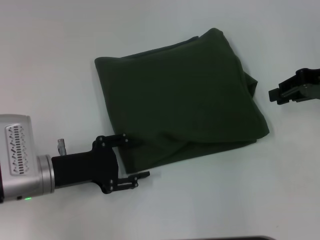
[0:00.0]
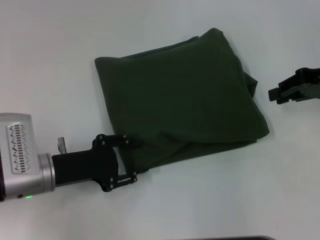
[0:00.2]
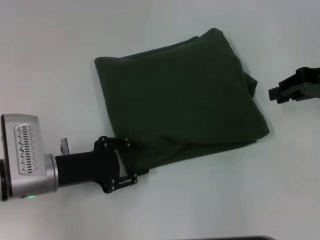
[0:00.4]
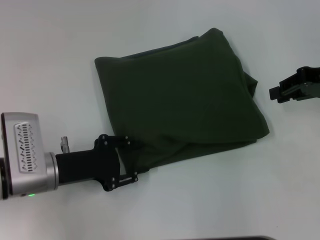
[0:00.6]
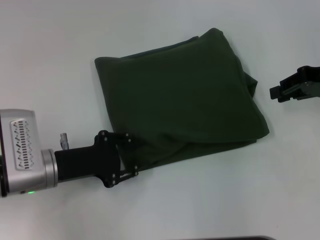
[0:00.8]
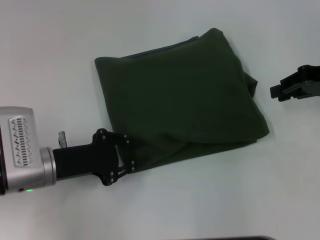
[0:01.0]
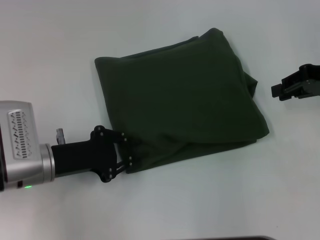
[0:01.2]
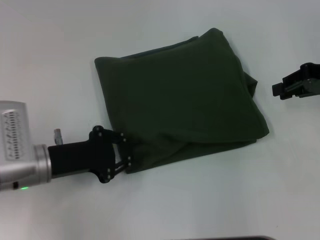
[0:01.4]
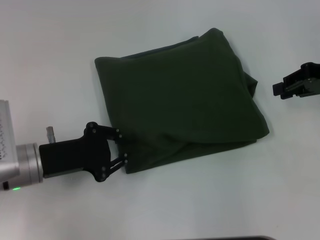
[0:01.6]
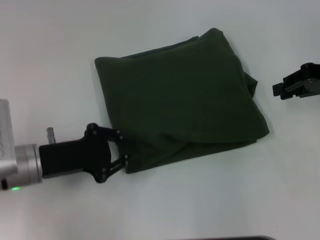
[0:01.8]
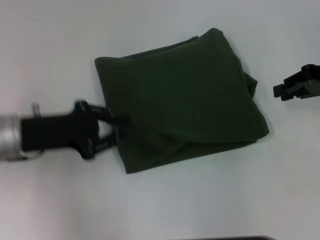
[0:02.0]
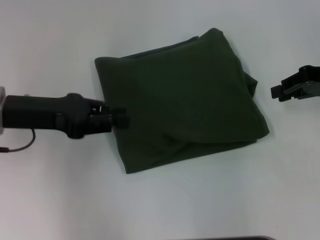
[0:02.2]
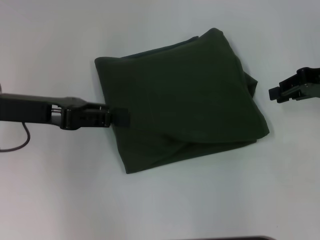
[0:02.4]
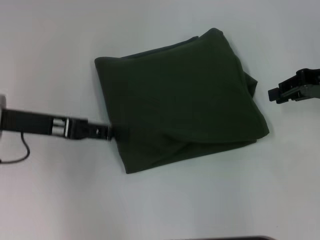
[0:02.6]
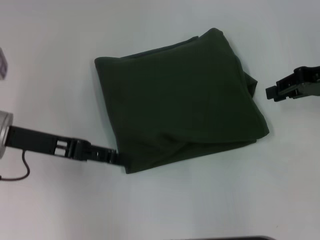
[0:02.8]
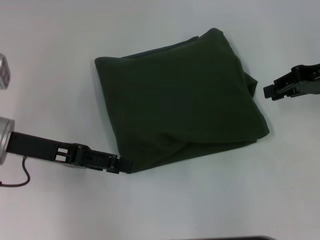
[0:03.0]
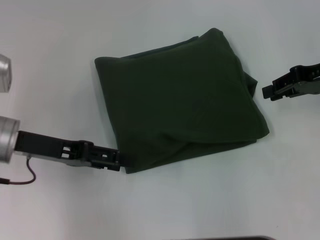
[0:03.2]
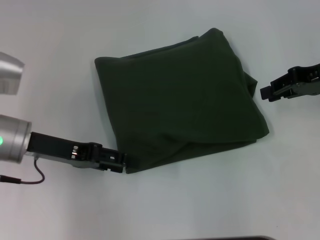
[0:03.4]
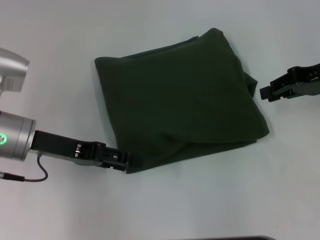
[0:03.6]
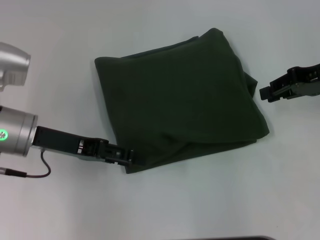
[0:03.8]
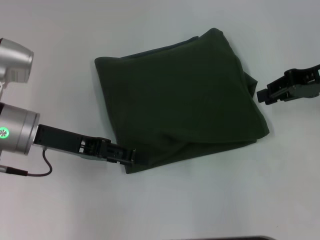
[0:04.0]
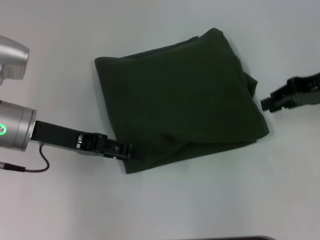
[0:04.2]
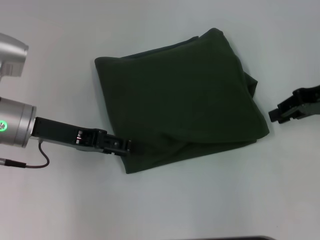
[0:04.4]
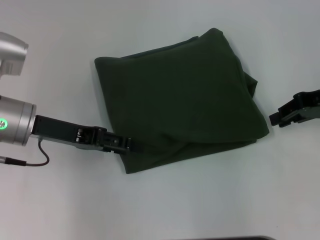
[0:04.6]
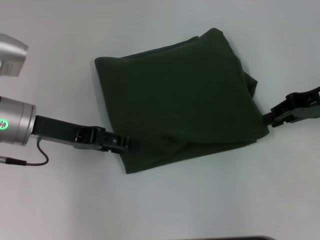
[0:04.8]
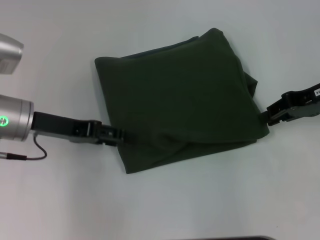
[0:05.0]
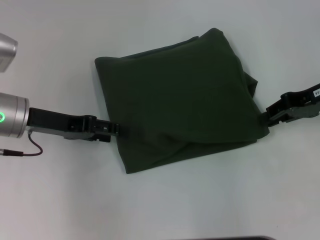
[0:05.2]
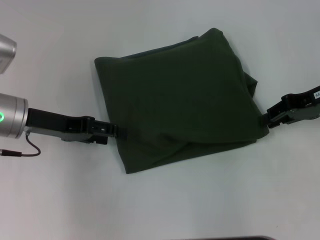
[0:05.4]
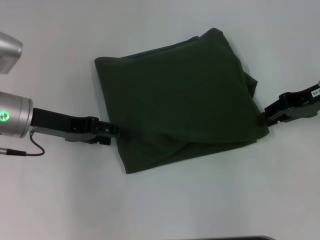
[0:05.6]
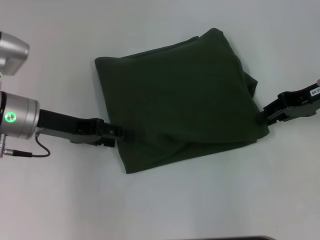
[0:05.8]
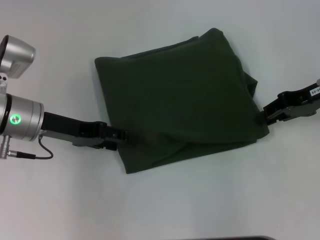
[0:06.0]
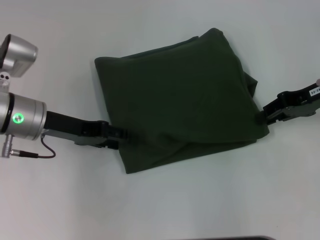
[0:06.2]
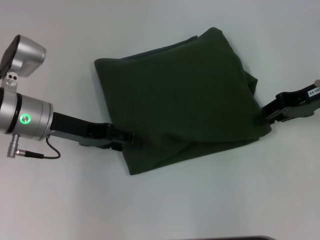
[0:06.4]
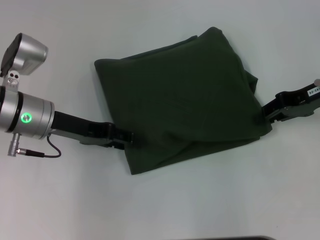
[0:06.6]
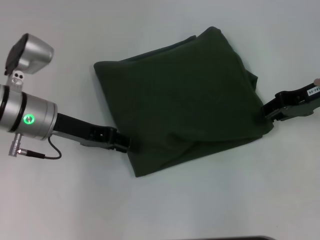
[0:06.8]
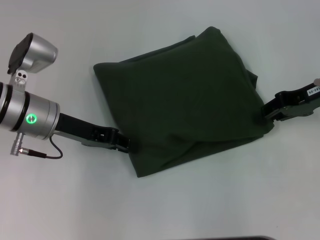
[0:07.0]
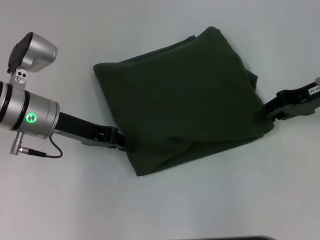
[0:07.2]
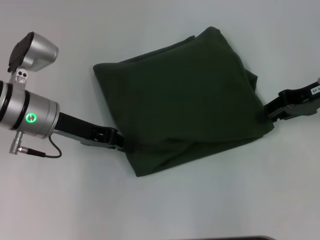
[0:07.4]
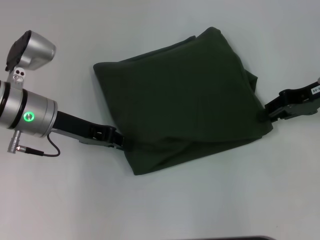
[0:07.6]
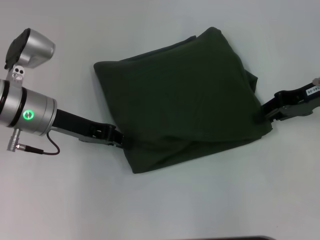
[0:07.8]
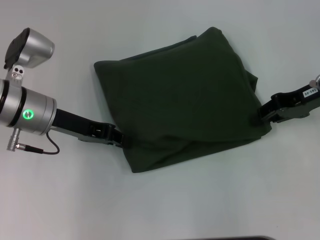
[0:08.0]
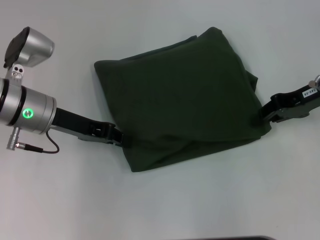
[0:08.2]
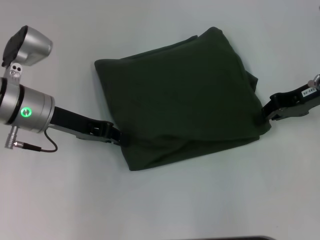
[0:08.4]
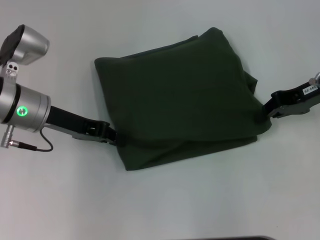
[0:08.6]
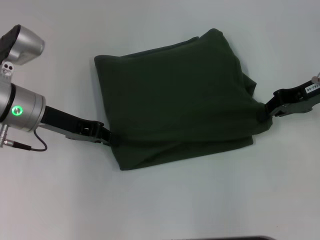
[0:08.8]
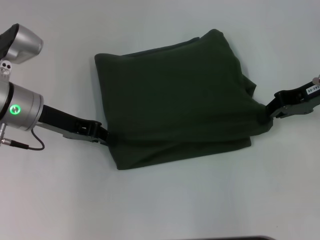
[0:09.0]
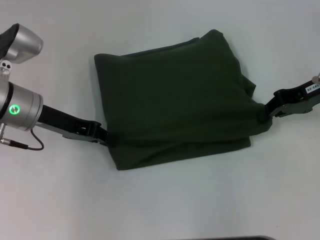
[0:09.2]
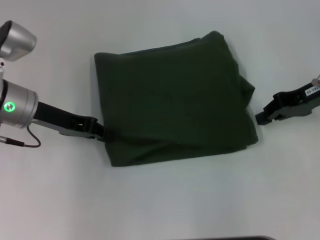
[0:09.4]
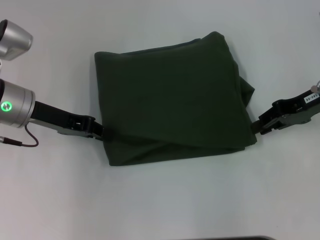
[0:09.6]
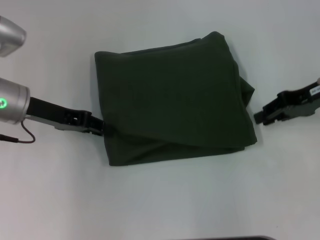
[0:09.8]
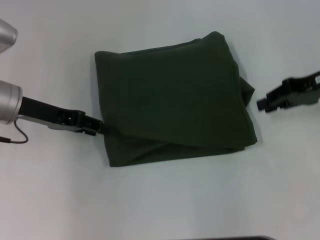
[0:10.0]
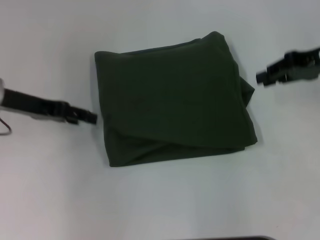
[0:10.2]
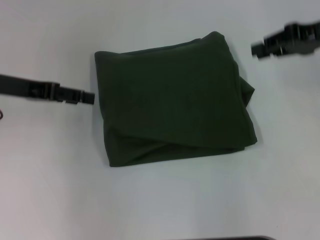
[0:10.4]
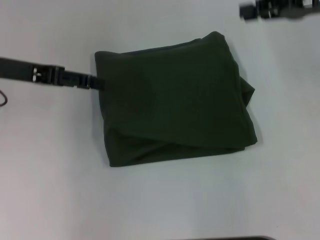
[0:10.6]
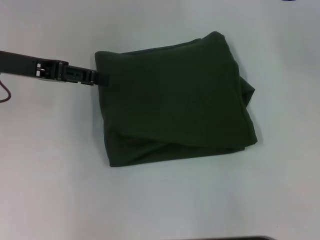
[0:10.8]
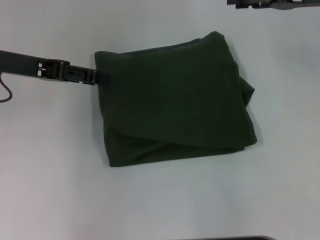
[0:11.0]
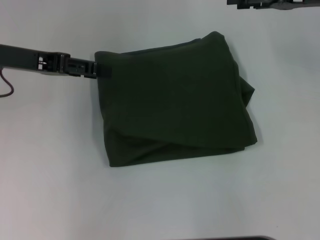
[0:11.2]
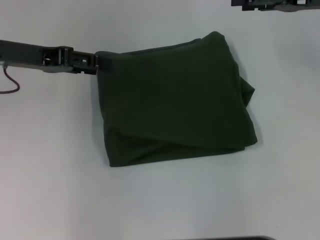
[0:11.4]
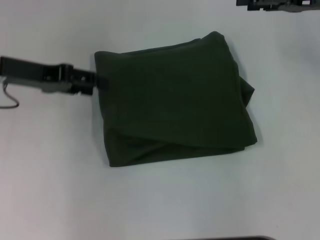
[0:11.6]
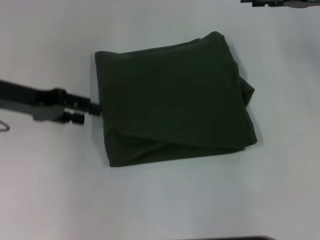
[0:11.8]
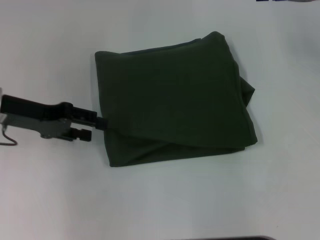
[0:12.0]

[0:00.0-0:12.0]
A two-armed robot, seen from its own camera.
0:00.0 to 0:01.6: The left gripper closes.
0:01.6 to 0:03.0: The left gripper goes roughly 5 cm upward, and opens.
0:03.0 to 0:06.0: The grippers stay close to where they were, moving slightly.
0:06.0 to 0:07.6: The left gripper closes.
0:07.6 to 0:09.0: There are only small adjustments of the grippers.
0:09.0 to 0:10.4: The left gripper is displaced to the left and upward by some 10 cm, and opens its fingers; the right gripper is displaced upward by approximately 5 cm.
0:10.4 to 0:12.0: The right gripper opens up.

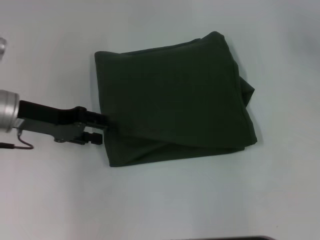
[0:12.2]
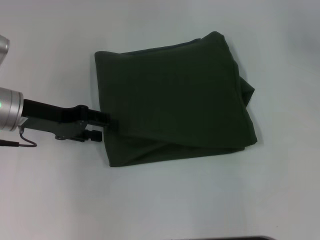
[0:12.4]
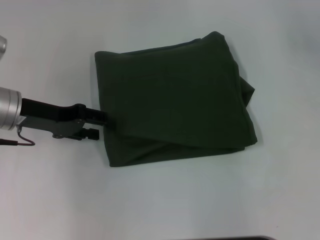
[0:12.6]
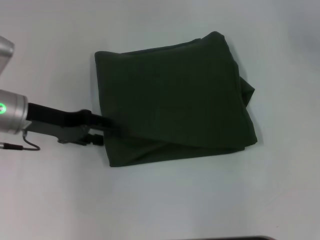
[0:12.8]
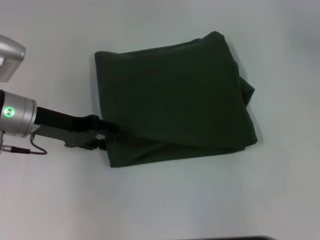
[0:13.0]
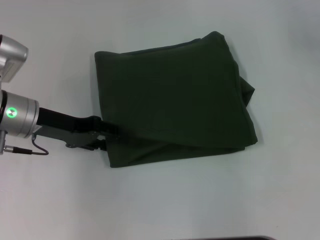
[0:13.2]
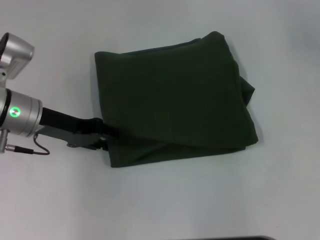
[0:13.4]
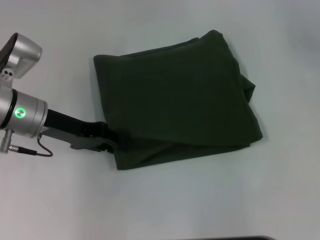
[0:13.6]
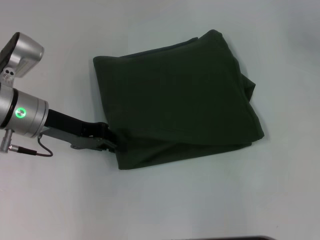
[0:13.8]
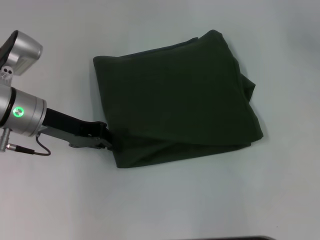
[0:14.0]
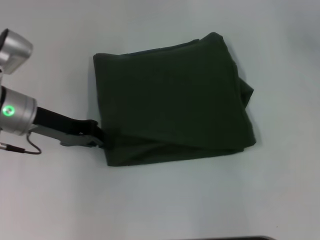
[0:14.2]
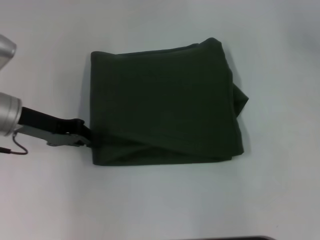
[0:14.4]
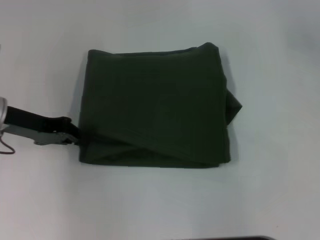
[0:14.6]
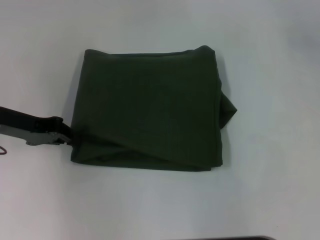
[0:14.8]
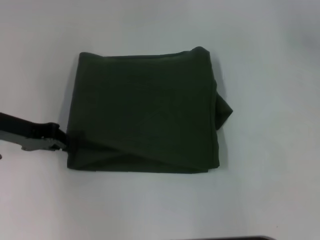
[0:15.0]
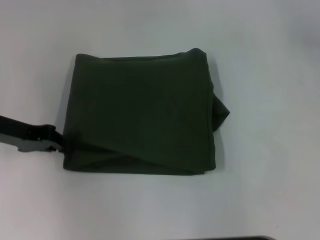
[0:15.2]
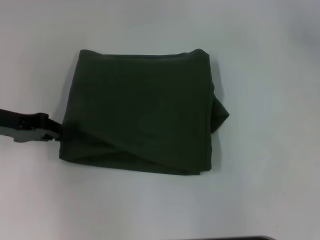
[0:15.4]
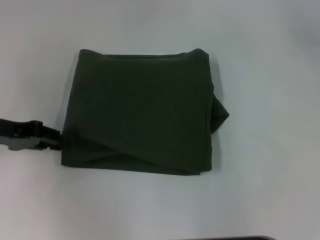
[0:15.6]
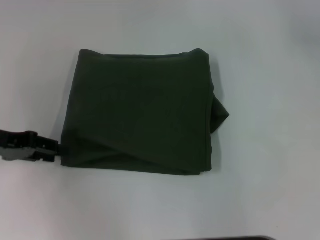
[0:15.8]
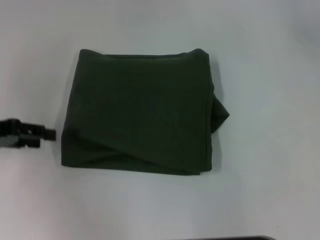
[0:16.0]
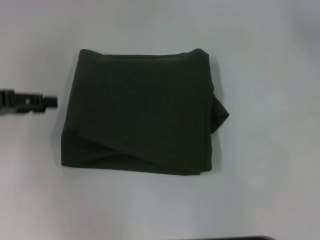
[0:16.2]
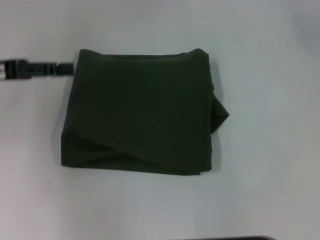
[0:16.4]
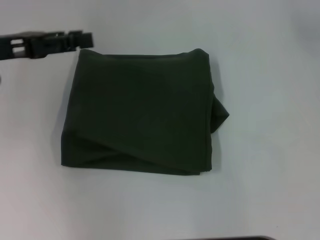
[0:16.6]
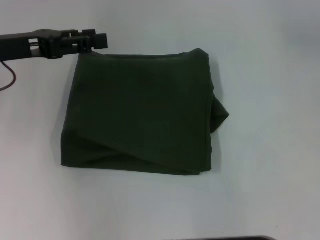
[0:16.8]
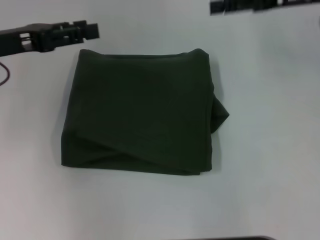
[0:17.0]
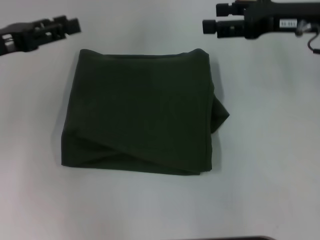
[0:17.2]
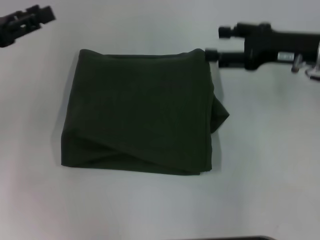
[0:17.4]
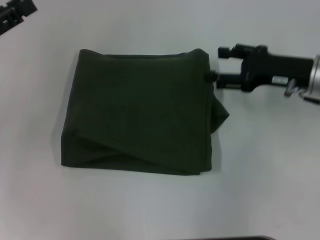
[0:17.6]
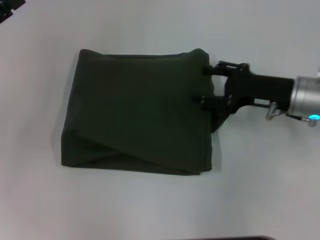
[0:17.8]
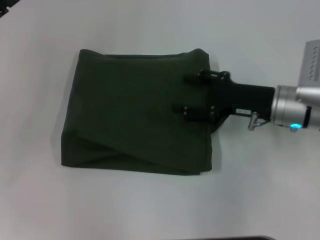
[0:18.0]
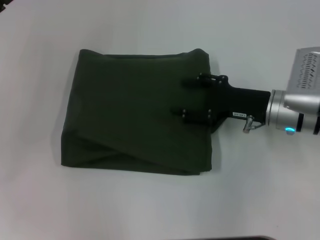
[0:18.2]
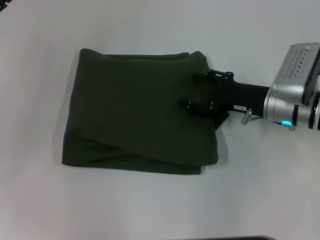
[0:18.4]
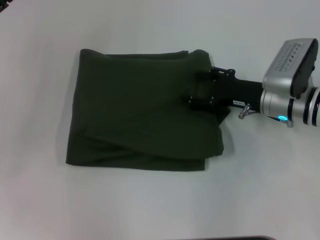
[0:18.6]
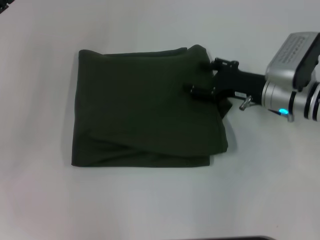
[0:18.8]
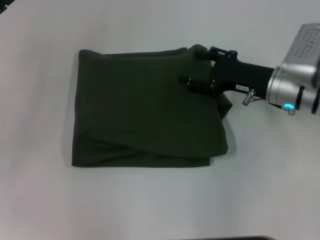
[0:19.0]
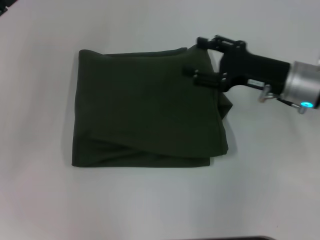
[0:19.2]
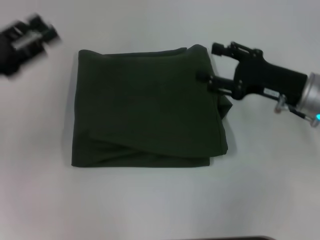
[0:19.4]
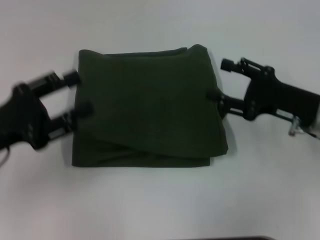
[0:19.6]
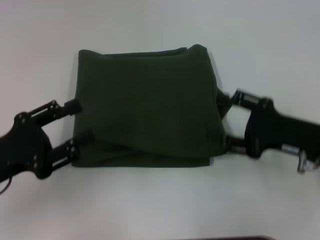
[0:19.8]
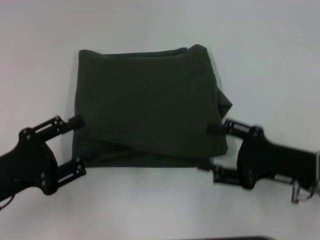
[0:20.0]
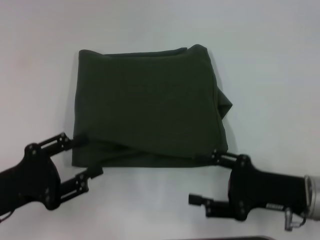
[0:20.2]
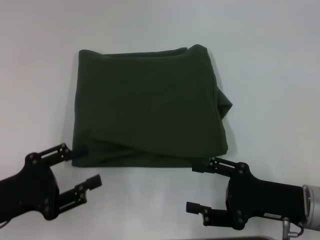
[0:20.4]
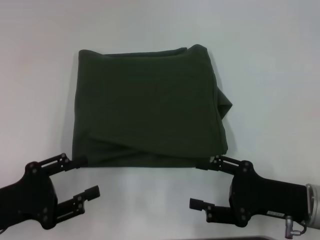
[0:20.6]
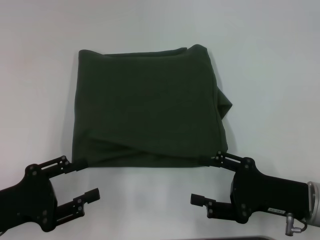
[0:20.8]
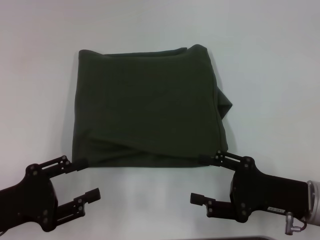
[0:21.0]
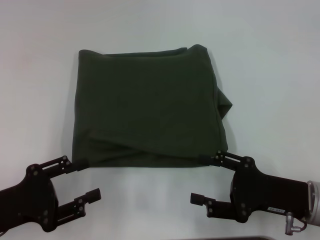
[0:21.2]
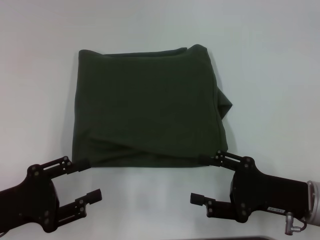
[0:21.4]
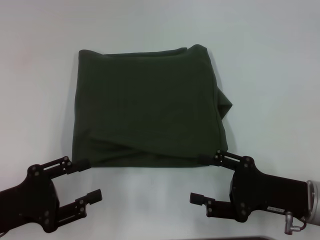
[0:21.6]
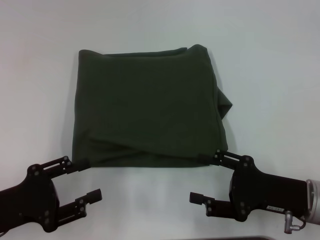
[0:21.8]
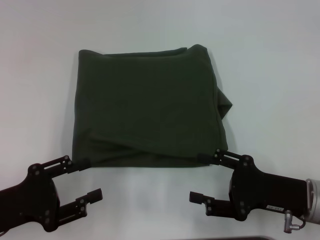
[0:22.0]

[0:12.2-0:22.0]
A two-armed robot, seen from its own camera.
0:12.2 to 0:13.6: The grippers stay close to where they were, moving slightly.
0:13.6 to 0:15.0: The left gripper moves to the left, roughly 5 cm, and closes its fingers.
0:15.0 to 0:16.4: The left gripper shifts roughly 5 cm upward, and opens up.
0:16.4 to 0:17.8: The right gripper is displaced downward and backward by some 20 cm.
0:17.8 to 0:19.2: The grippers stay close to where they were, moving slightly.
0:19.2 to 0:20.6: The right gripper goes approximately 15 cm backward, while the left gripper shifts roughly 15 cm backward and downward.
0:20.6 to 0:22.0: Neither gripper changes place.
